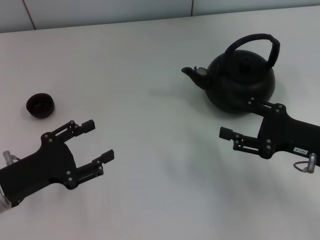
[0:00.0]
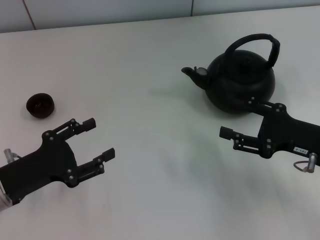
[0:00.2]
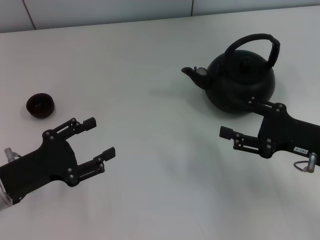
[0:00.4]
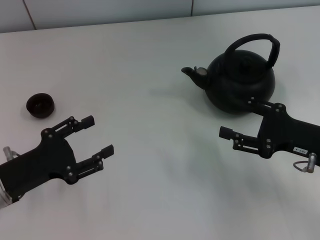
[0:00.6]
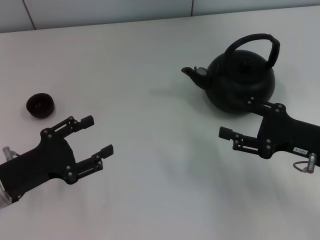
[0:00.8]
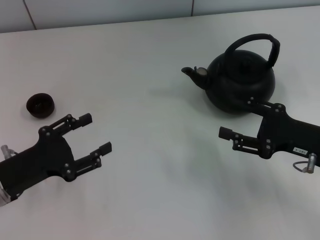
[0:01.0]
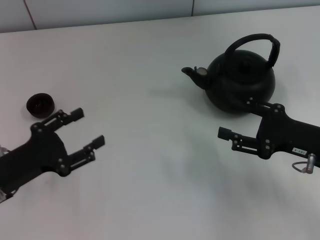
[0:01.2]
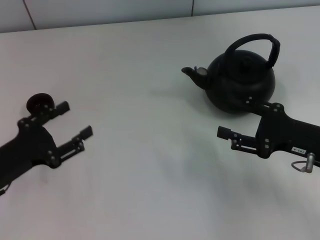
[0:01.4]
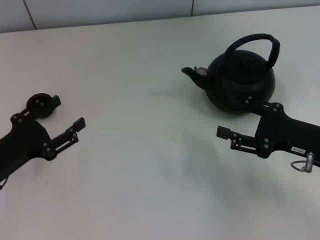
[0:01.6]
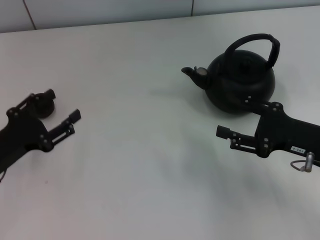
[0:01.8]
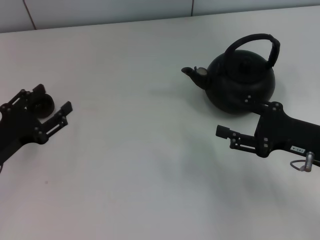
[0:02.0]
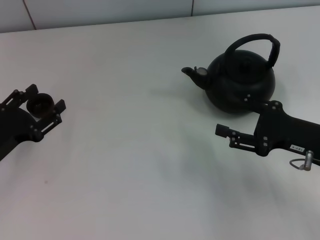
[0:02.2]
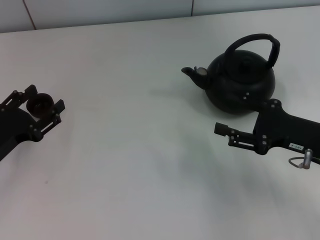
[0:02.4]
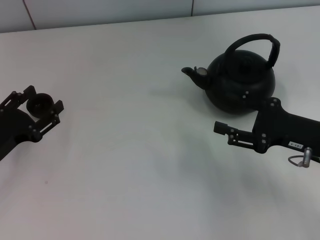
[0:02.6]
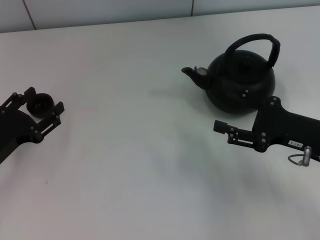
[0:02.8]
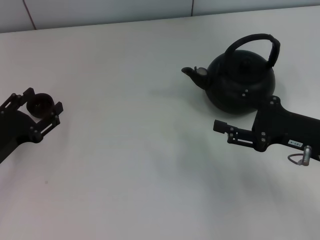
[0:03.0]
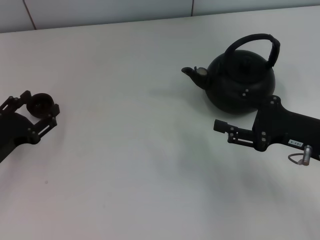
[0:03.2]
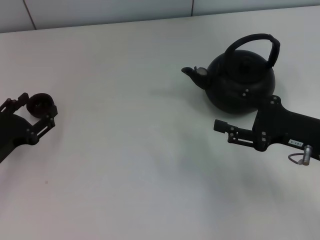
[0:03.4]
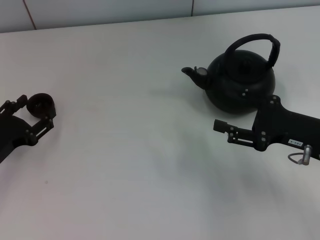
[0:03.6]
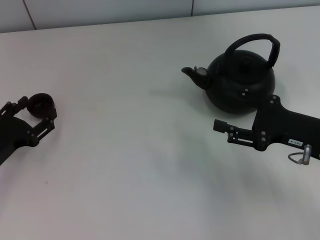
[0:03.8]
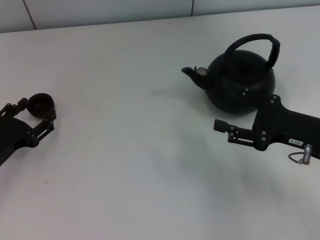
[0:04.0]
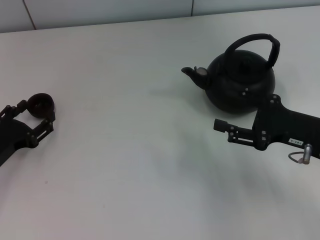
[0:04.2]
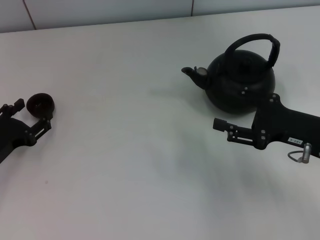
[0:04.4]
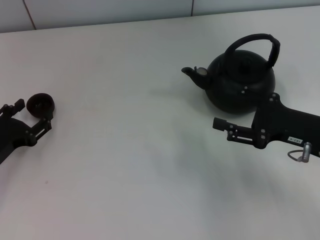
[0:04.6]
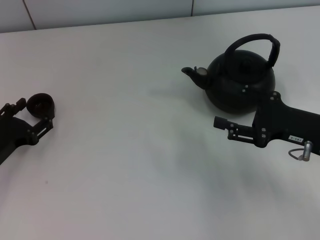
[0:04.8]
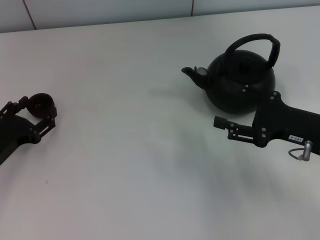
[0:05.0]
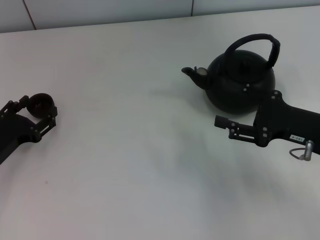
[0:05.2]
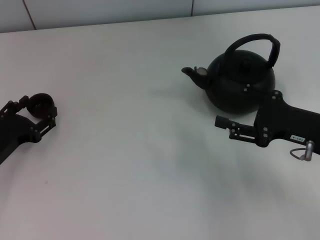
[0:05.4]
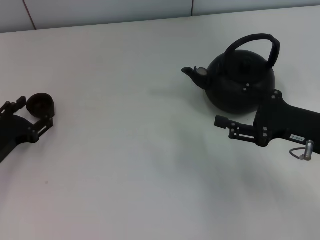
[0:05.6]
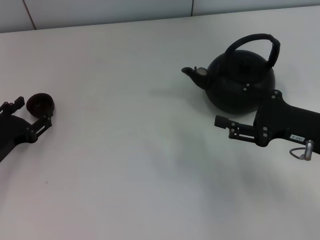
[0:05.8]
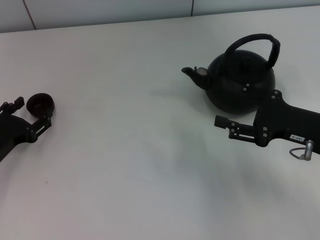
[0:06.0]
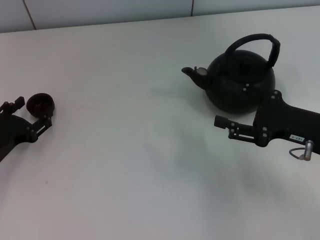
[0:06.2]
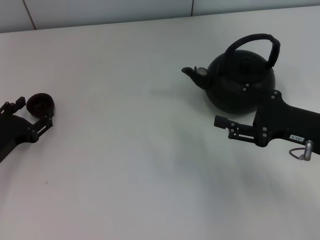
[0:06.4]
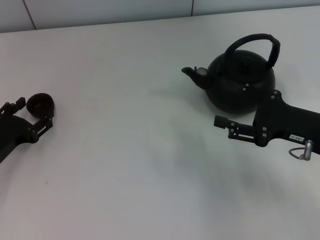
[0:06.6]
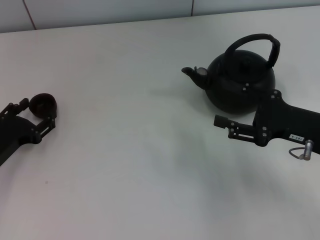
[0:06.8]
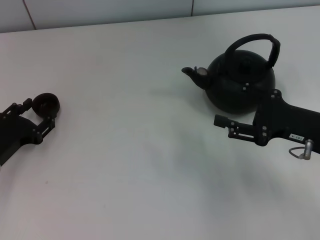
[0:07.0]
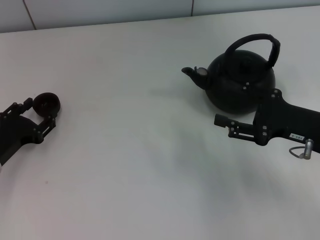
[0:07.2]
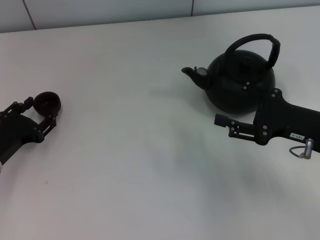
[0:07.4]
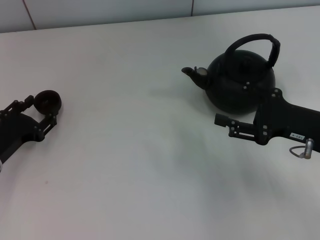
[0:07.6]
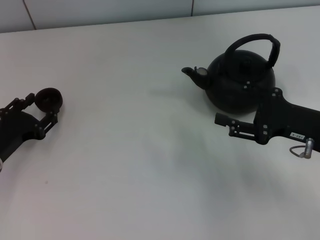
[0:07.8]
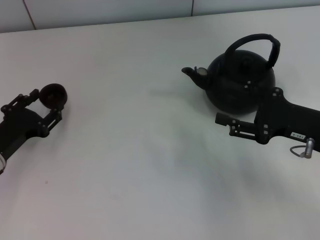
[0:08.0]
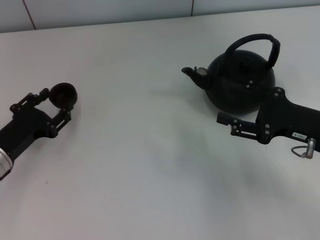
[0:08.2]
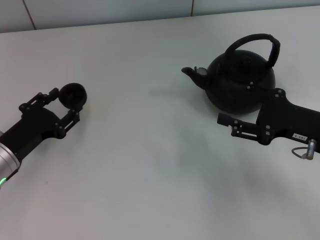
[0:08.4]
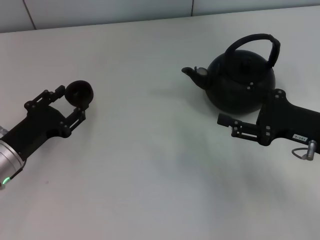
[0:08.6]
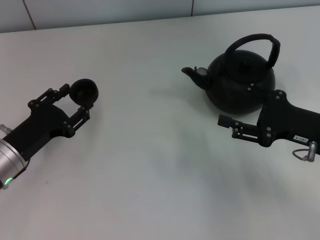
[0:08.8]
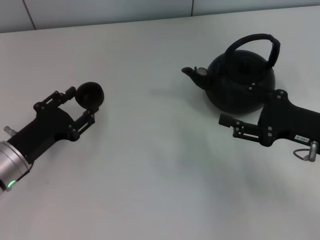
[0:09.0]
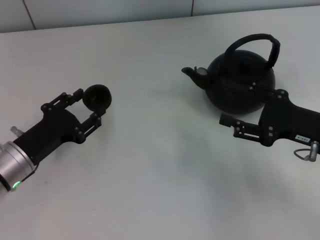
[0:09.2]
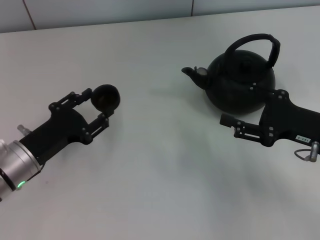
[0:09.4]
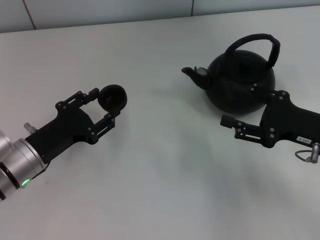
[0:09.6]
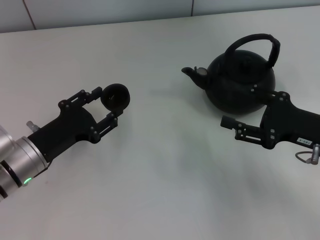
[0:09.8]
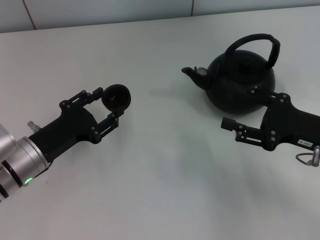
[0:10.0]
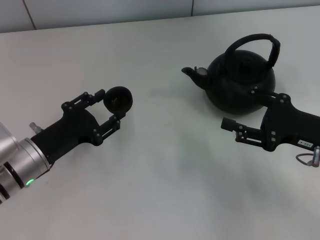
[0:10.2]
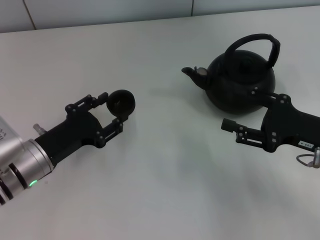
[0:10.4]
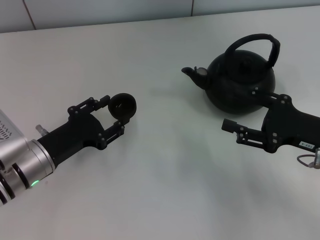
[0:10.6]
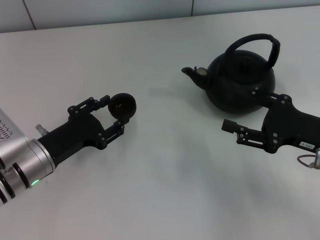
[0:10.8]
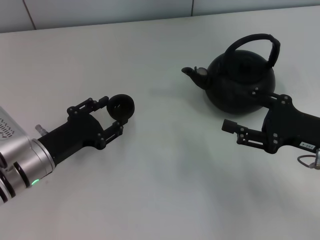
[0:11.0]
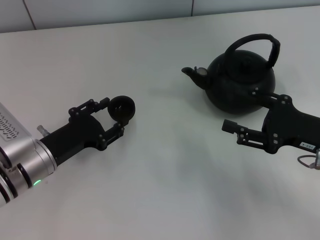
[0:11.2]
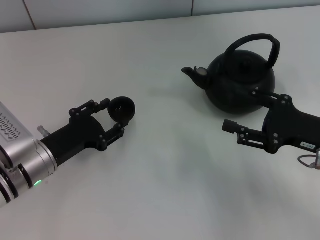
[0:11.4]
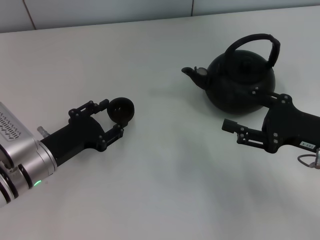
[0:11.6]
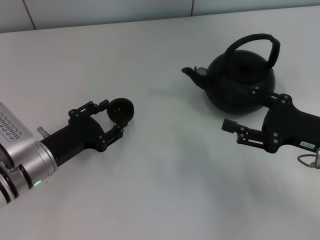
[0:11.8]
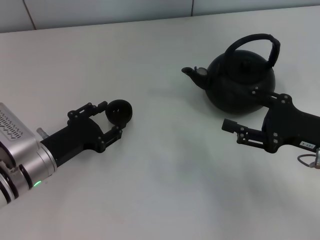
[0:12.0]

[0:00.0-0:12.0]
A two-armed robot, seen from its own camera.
Task of the whole recording: Grasp the handle of the teapot with one hand and pour tea into the teacup.
Step, 0:00.0 to 0:08.2: Pick up the teacup with the left gripper.
0:00.0 to 0:01.6: The grippers make only small movements.
0:01.6 to 0:03.0: The grippers make only small movements.
0:03.0 to 0:04.4: The grippers stay close to where they were, moving slightly.
0:04.4 to 0:06.0: The two grippers keep their place.
0:06.0 to 0:07.6: The left gripper closes.
0:07.6 to 0:09.0: The grippers stay close to where they were, moving slightly.
0:09.0 to 0:12.0: There are only small adjustments of the grippers.

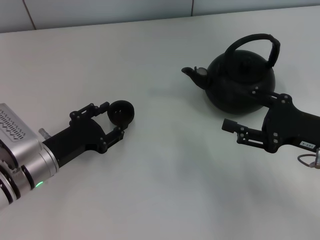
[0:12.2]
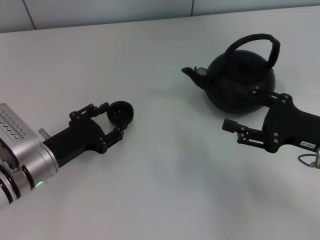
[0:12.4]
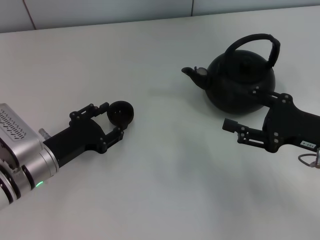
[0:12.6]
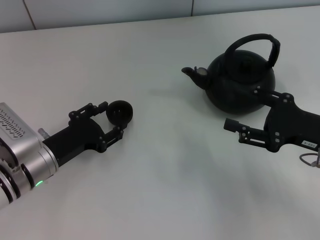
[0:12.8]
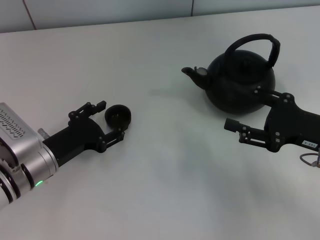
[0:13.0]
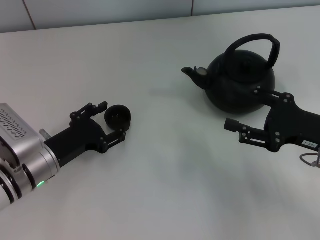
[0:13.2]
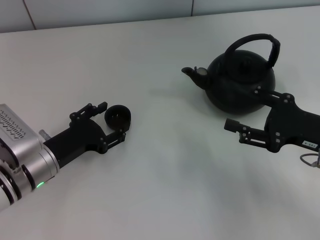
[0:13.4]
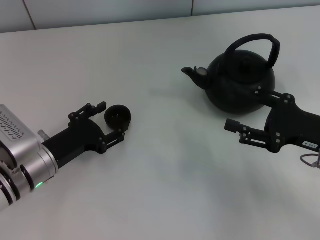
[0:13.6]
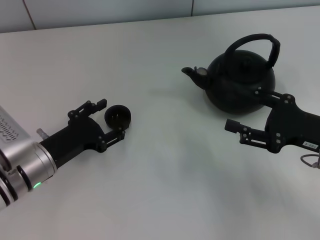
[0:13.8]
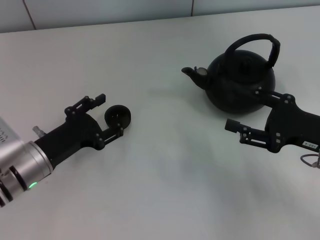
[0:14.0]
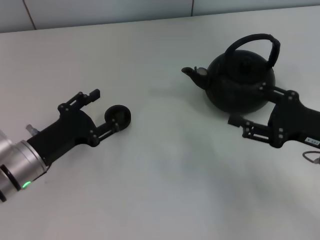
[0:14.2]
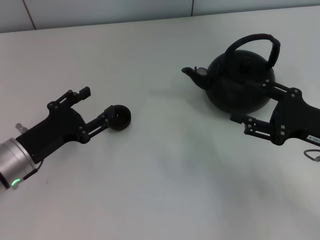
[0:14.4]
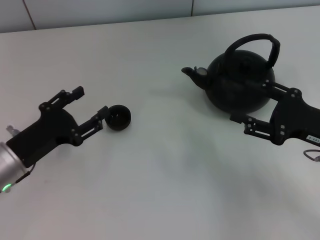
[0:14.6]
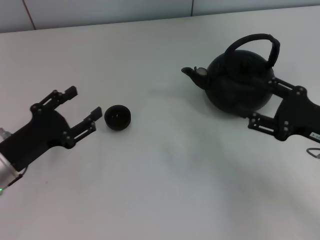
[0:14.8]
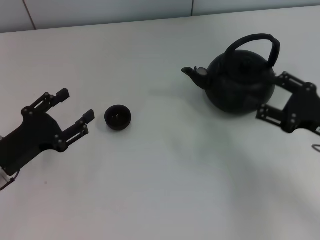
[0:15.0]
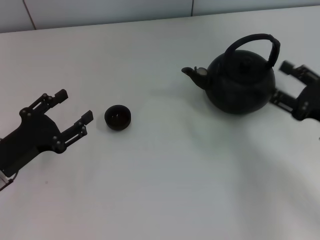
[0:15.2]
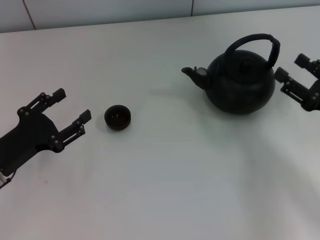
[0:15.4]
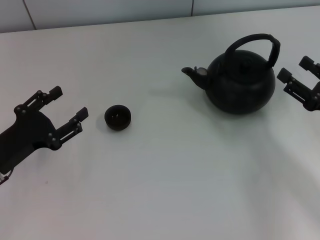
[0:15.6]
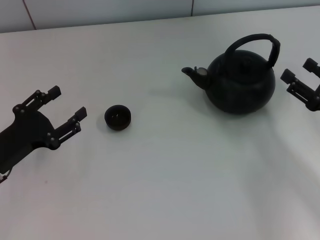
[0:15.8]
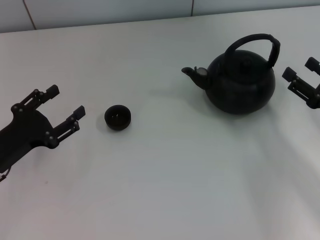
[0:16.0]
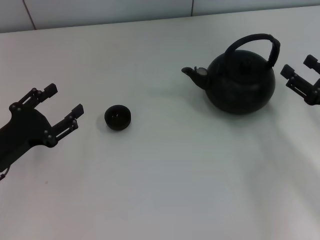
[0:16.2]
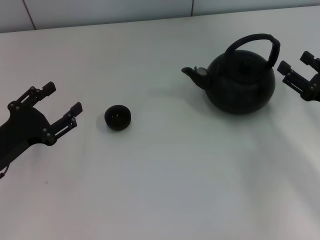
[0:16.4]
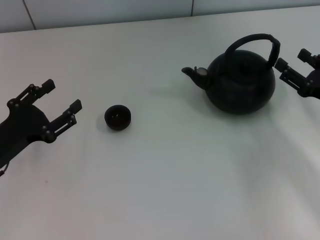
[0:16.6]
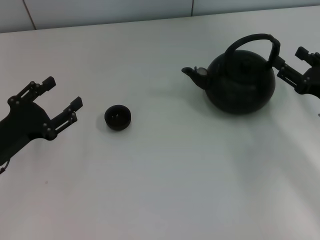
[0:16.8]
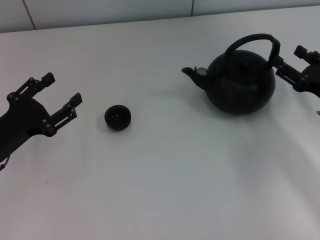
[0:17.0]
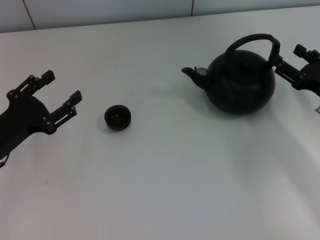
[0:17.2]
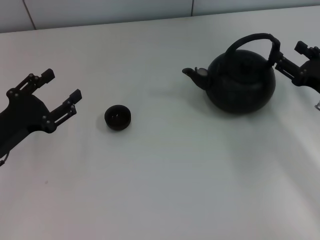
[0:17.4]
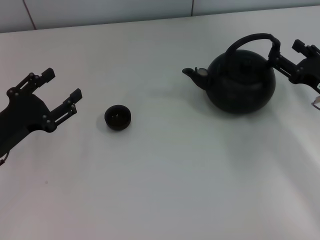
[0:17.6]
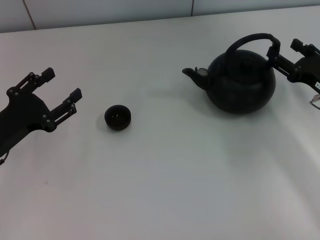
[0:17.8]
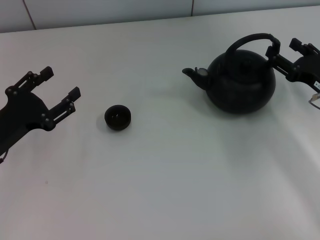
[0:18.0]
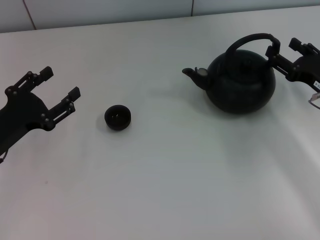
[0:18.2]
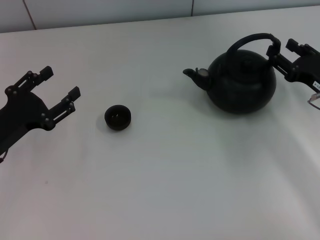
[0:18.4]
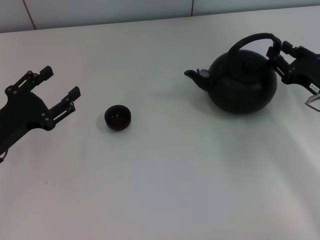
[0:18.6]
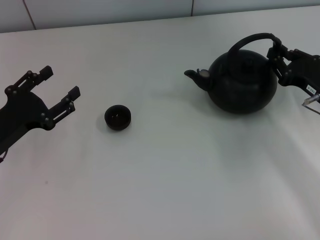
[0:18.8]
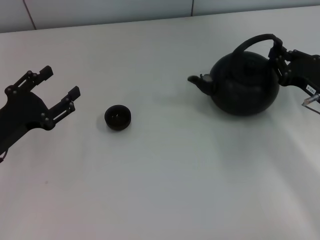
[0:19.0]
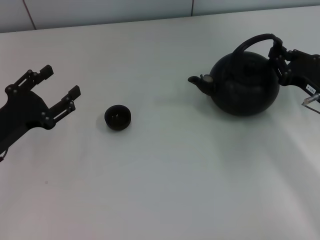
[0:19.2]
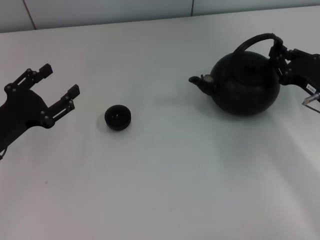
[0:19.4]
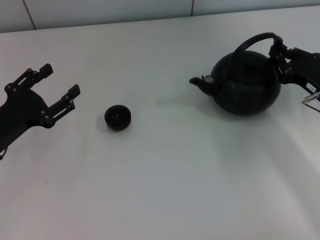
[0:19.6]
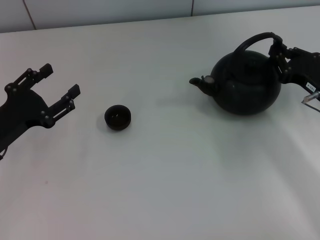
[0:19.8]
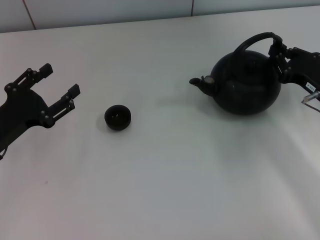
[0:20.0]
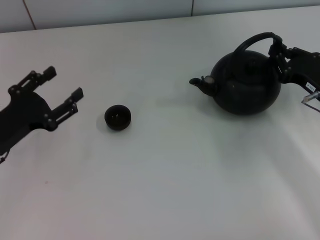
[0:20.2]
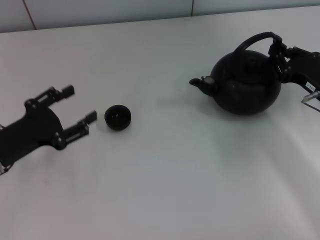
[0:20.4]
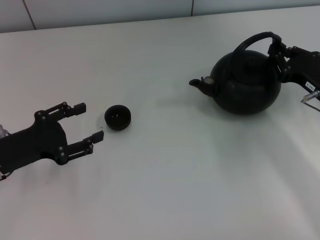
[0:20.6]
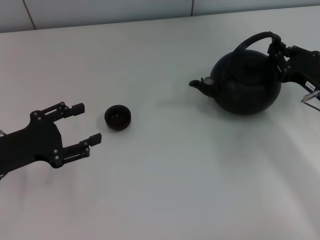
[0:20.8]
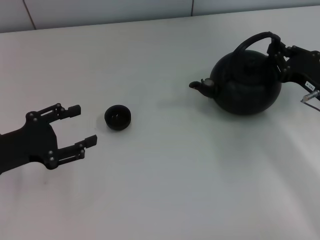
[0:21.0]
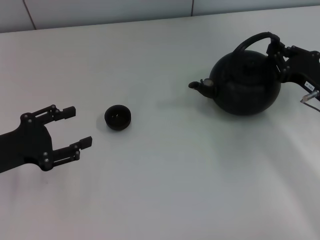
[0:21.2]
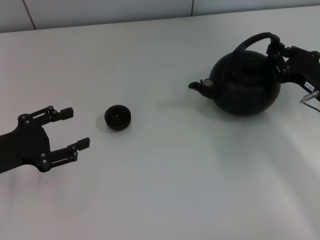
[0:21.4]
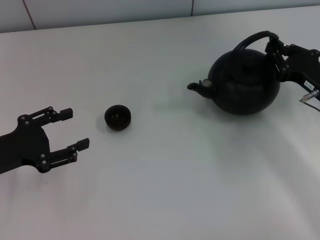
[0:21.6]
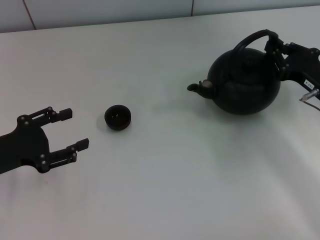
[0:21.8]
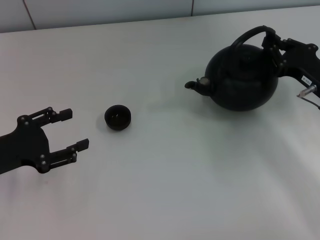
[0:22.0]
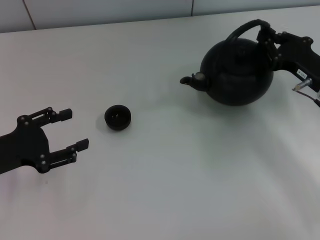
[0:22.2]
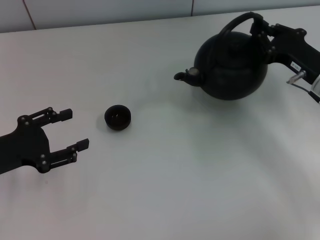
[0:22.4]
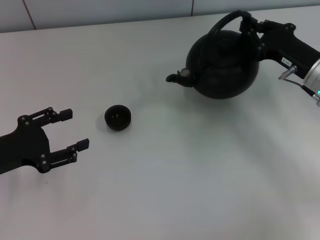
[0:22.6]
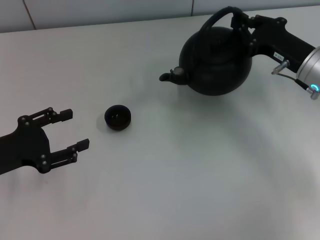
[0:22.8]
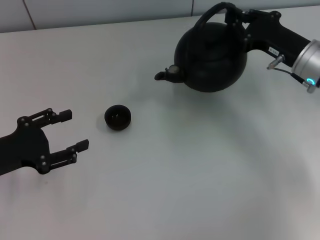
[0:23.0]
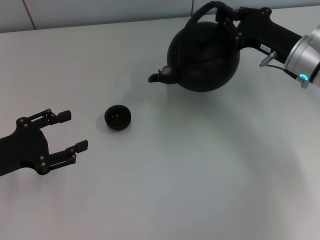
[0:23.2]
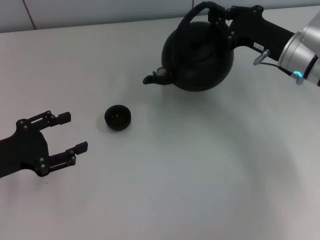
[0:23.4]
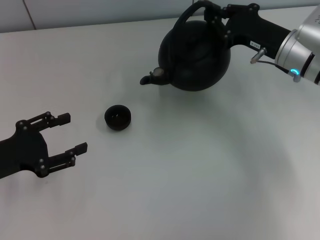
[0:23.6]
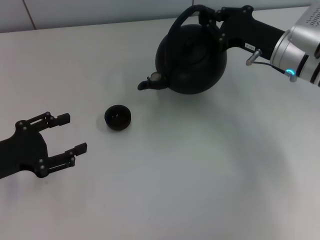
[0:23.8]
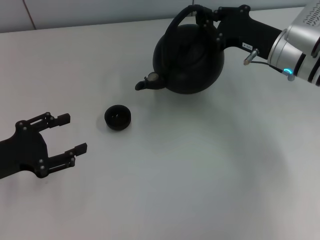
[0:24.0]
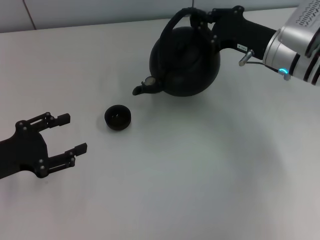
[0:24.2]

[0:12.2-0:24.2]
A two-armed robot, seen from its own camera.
Task of the whole recording: Grasp the handle of the teapot with one hand and pour tea into the teacup.
Step, 0:12.2 to 0:14.2: Place the teacup in the center of view with the left gripper.
Step, 0:14.4 to 0:22.8: Pick up the teapot with the right gripper.
0:12.2 to 0:13.8: The left gripper opens up.
0:13.8 to 0:15.2: The left gripper heads to the left, covering roughly 5 cm.
0:15.2 to 0:16.6: The grippers stay close to where they were, moving slightly.
0:16.6 to 0:18.2: There are only small adjustments of the grippers.
0:18.2 to 0:19.8: The right gripper closes up.
0:21.2 to 0:22.6: The right gripper shifts by about 5 cm.
0:22.6 to 0:24.2: The right gripper heads to the left, covering some 5 cm.
